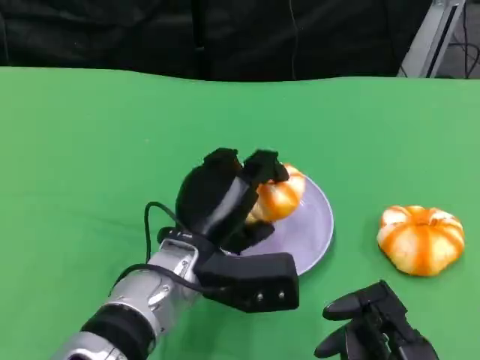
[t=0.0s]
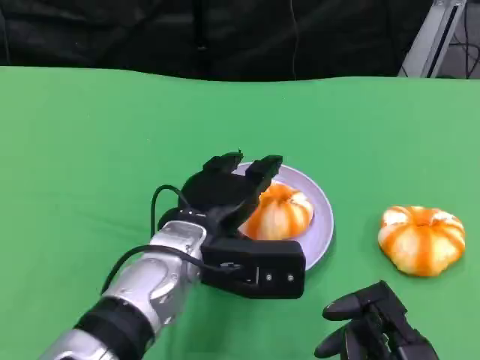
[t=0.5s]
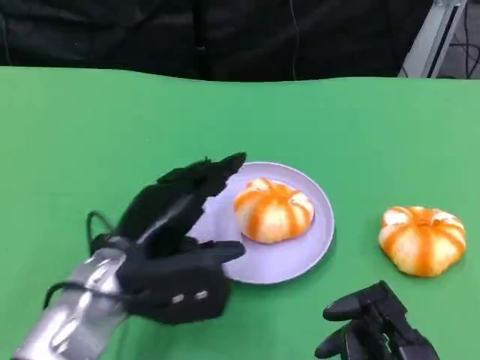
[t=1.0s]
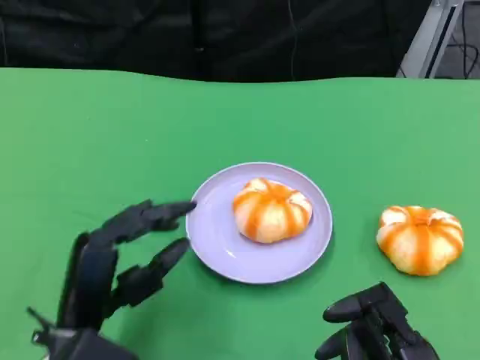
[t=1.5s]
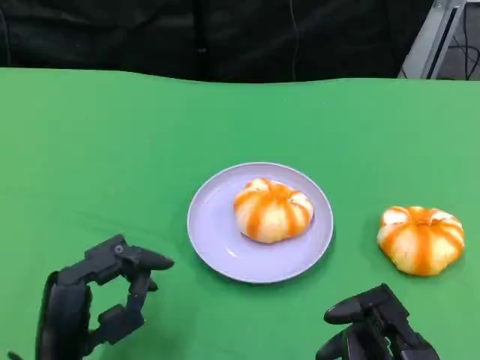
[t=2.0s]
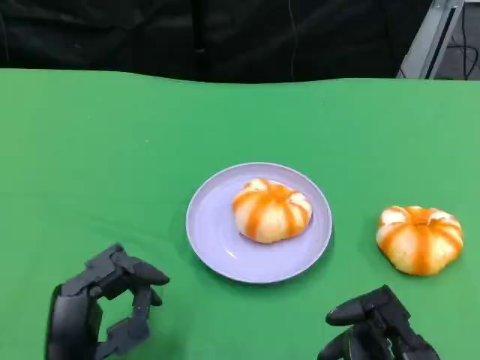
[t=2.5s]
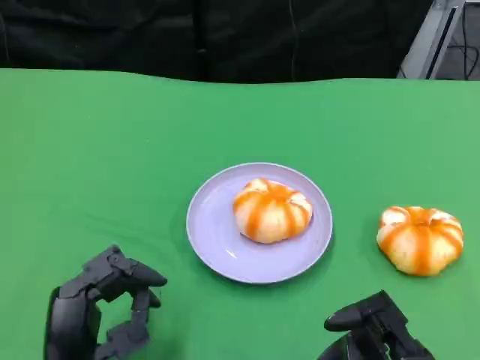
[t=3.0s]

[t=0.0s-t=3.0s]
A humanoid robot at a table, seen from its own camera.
Task of the whole recording: Grasp the bread from the table and place it into the plate.
t=0.0s to t=1.5s: The left hand is displaced to the left and backward by approximately 15 cm.
t=1.5s to t=3.0s: The hands stay close to where they were, moving slightly.

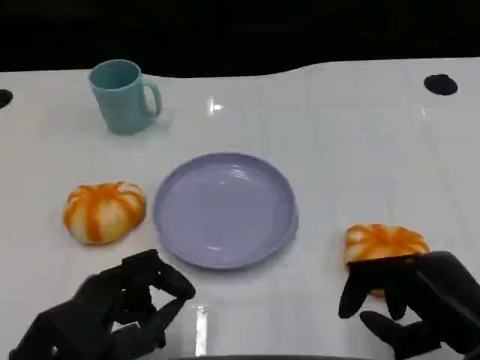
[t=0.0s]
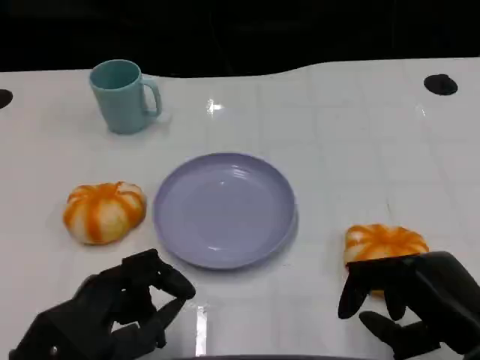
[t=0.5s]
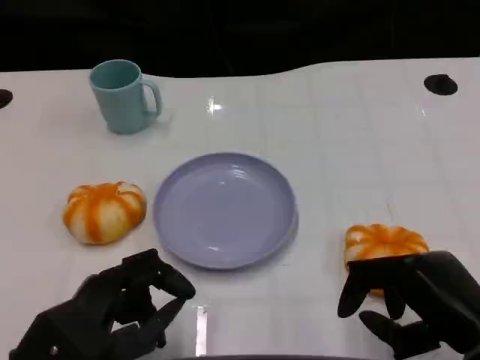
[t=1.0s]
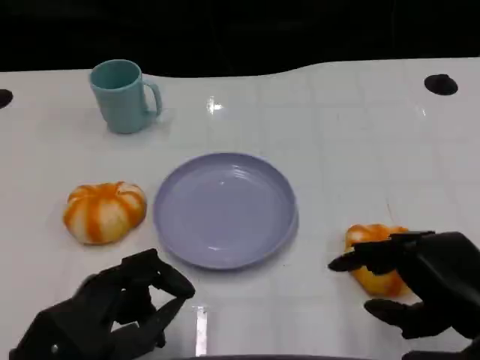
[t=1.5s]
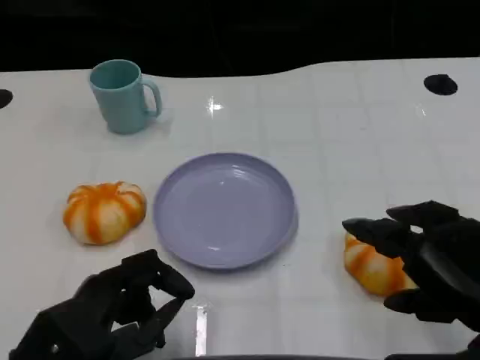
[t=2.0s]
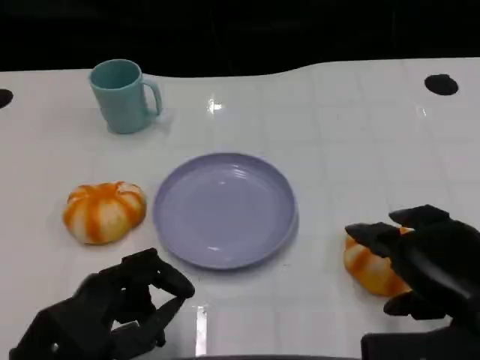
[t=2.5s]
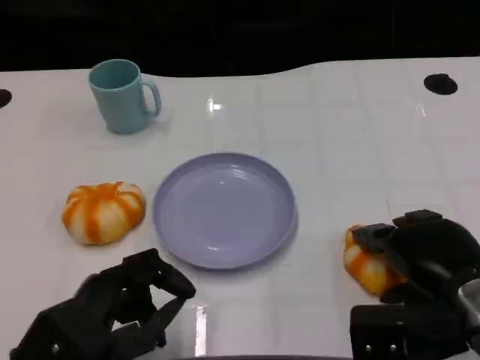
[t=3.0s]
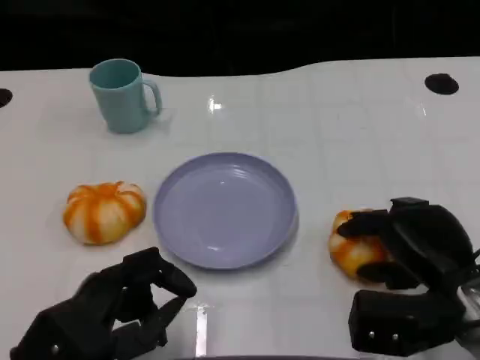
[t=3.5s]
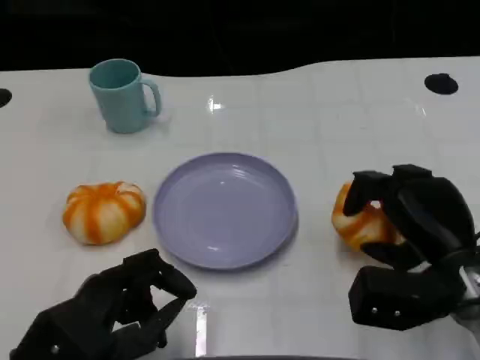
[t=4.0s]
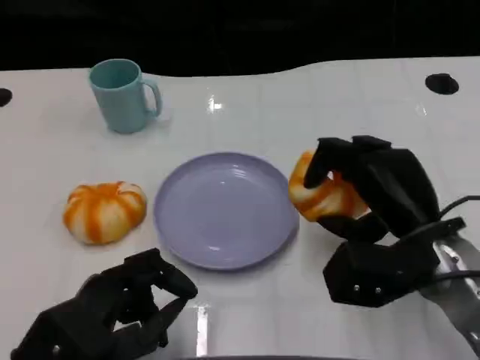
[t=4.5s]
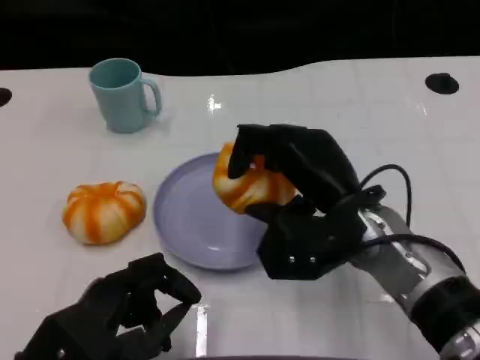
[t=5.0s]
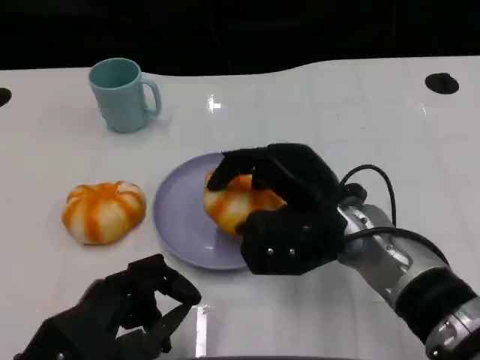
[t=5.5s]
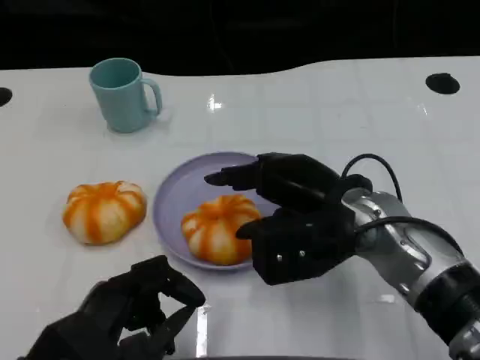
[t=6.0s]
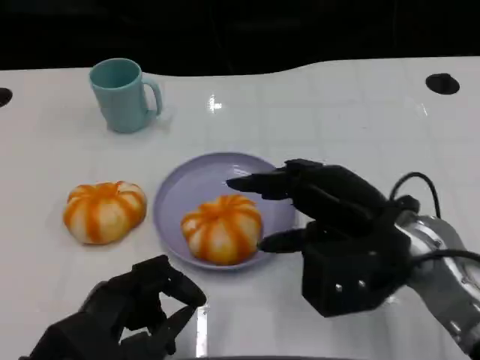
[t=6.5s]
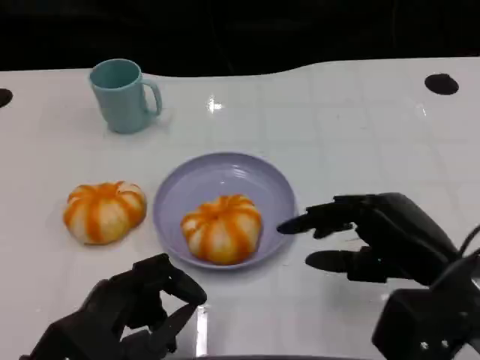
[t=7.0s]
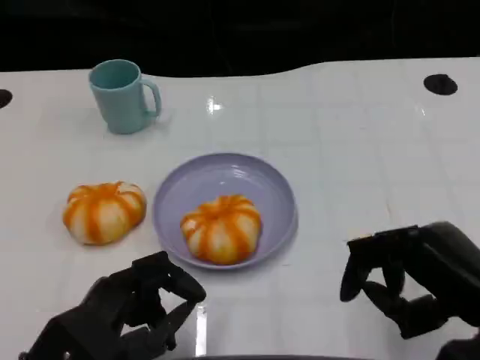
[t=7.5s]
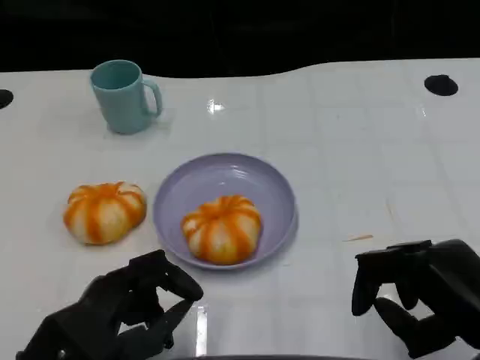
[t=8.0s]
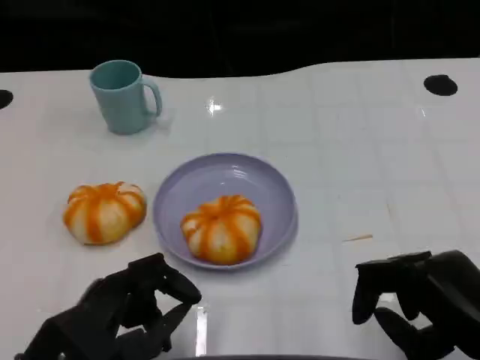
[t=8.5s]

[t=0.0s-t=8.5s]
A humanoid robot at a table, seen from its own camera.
Task of the whole recording: Grasp the bread from the table and place it into the plate.
t=2.0s to t=4.0s: The right hand travels forward and downward by about 10 cm.
t=4.0s to t=6.5s: The right hand shifts roughly 5 cm upward.
t=6.5s to t=8.5s: The right hand moves backward and to the right, some 10 cm.

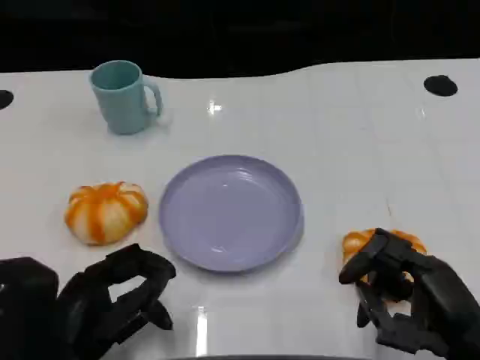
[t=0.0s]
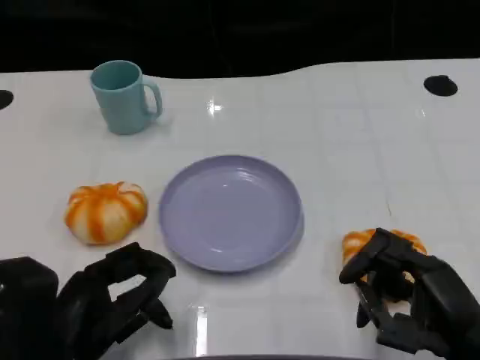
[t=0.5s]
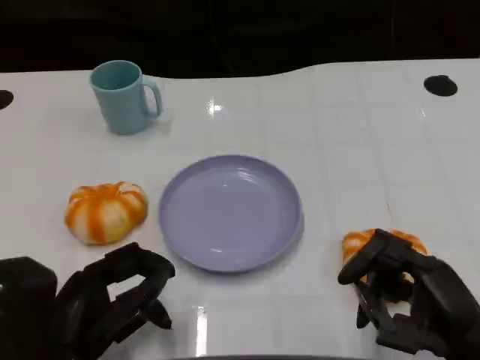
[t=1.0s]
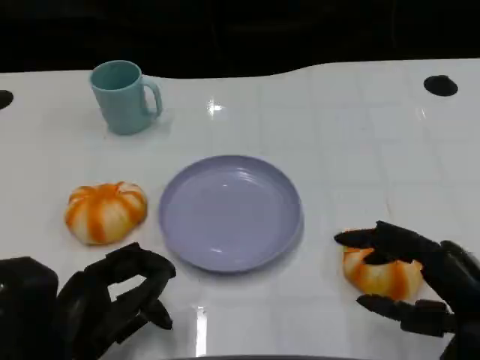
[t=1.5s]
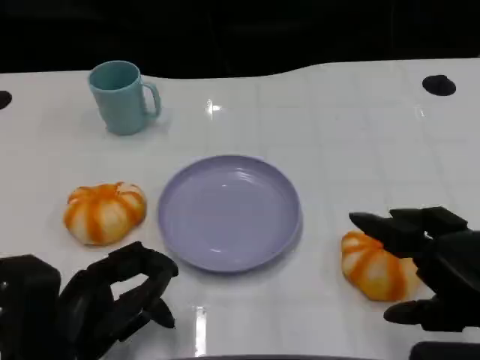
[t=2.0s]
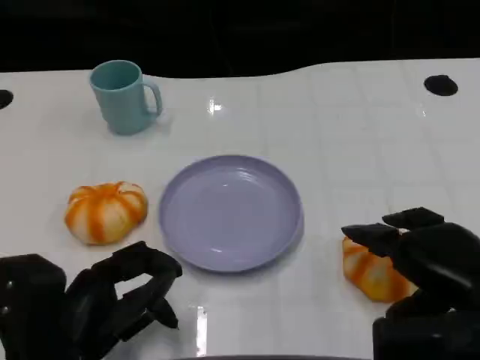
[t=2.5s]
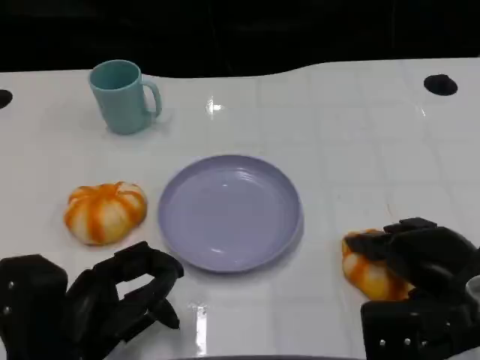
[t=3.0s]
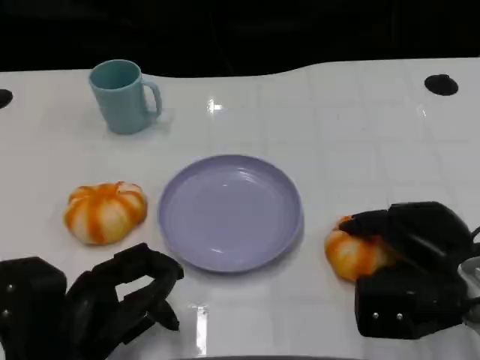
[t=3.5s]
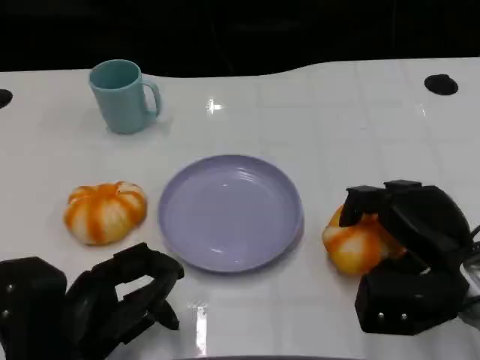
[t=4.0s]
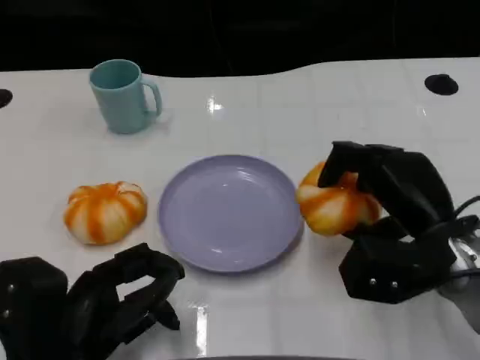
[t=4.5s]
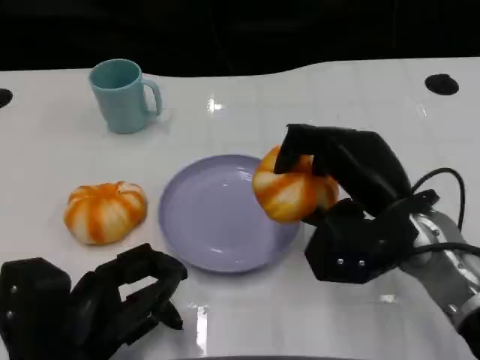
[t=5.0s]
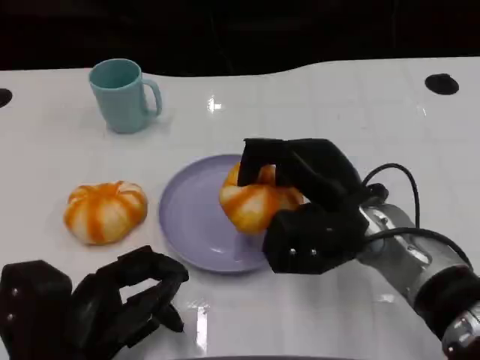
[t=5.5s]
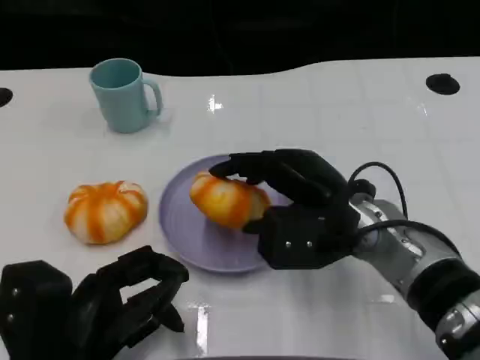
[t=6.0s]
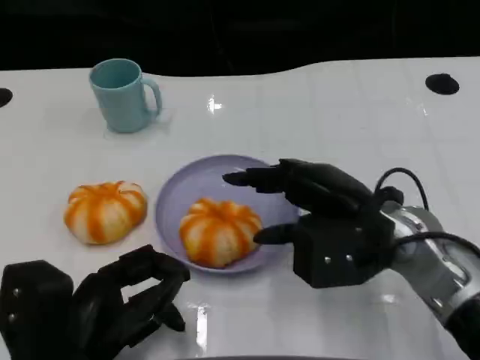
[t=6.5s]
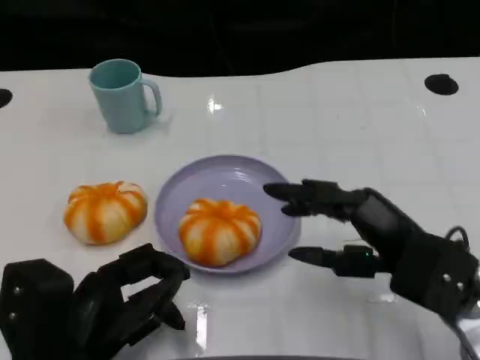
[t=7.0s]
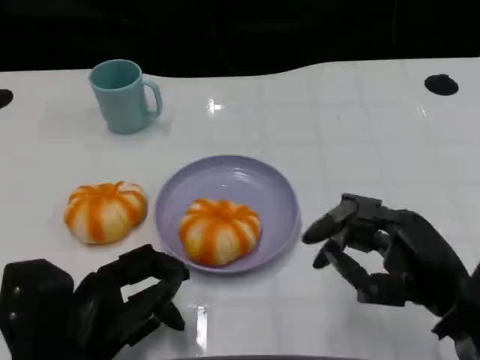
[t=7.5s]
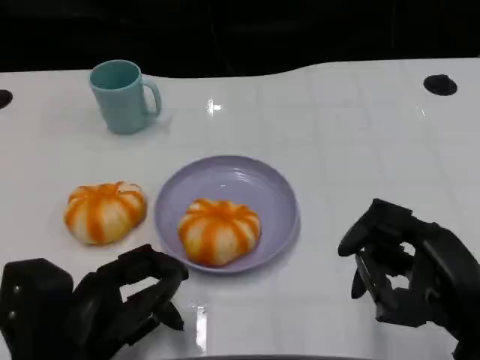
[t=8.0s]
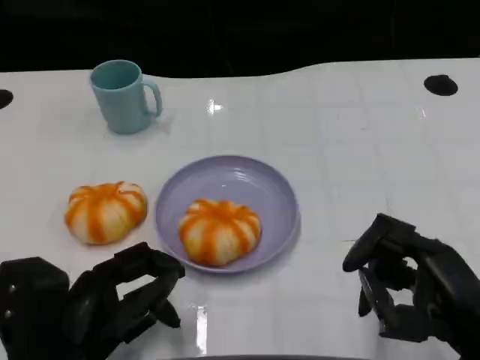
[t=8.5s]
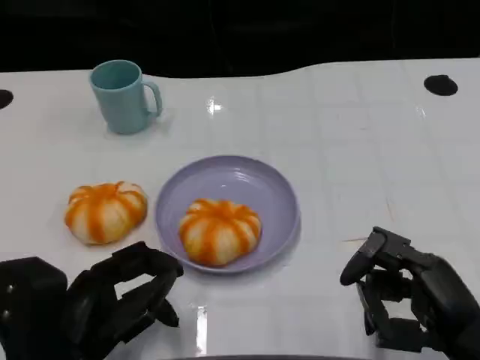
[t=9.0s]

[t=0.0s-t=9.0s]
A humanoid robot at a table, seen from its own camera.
Task of the whole recording: Grasp the bread from the table and place it into the plate.
t=0.0s to t=2.0s: The right hand travels upward by roughly 5 cm.
t=2.0s to t=4.5s: The right hand shifts about 10 cm forward and to the left.
t=4.5s to t=7.0s: The right hand moves about 10 cm to the left and comes back.
t=7.0s to t=9.0s: The right hand is displaced backward by approximately 5 cm.
